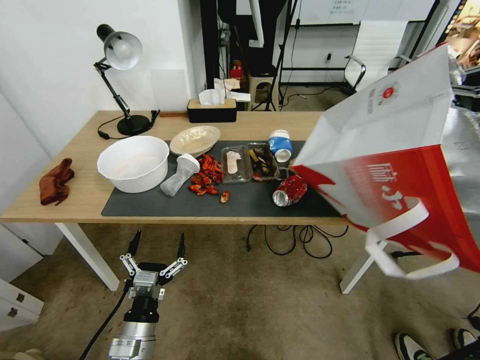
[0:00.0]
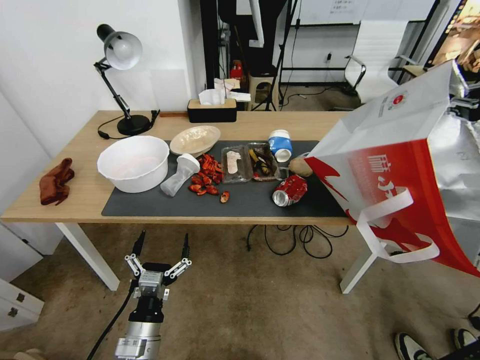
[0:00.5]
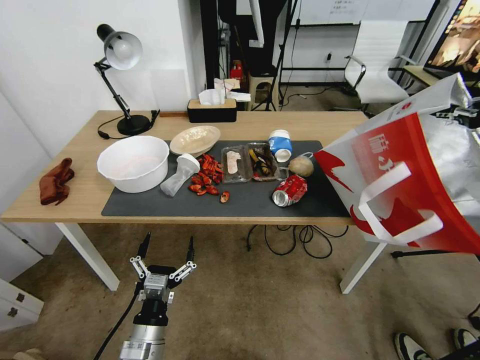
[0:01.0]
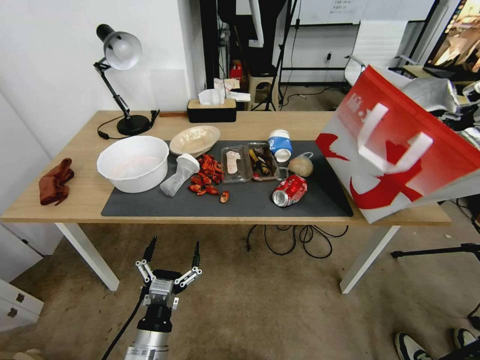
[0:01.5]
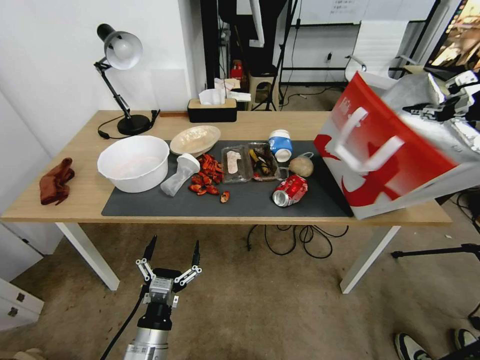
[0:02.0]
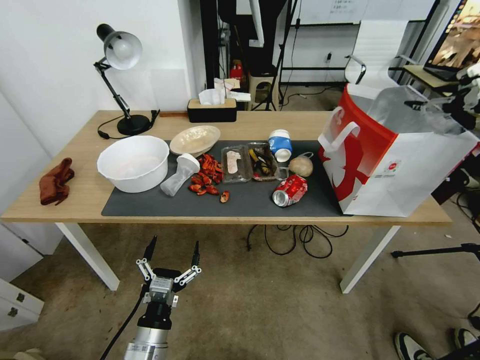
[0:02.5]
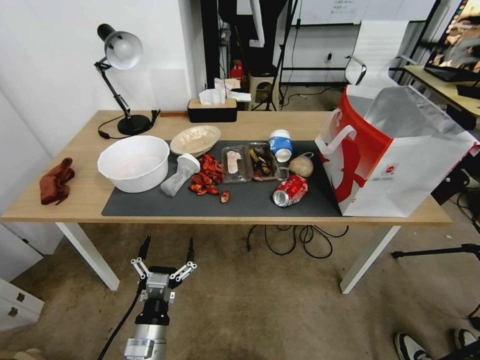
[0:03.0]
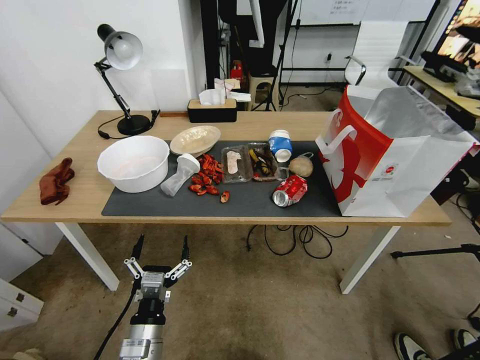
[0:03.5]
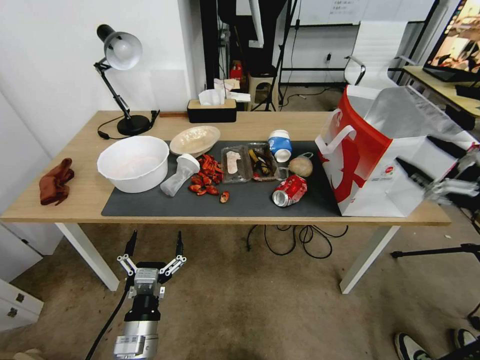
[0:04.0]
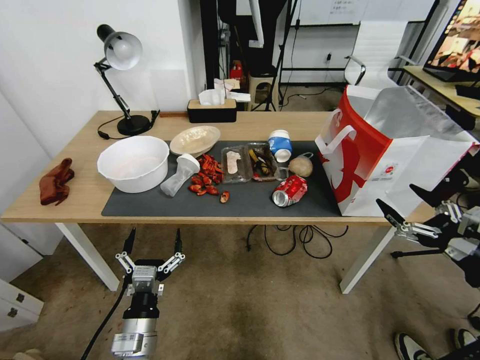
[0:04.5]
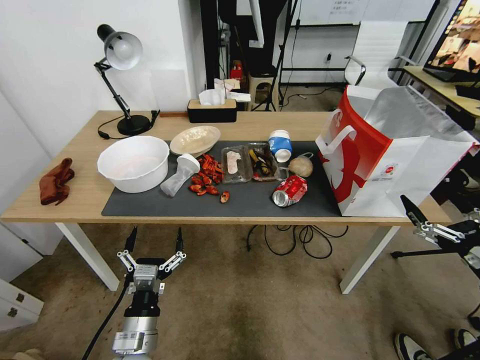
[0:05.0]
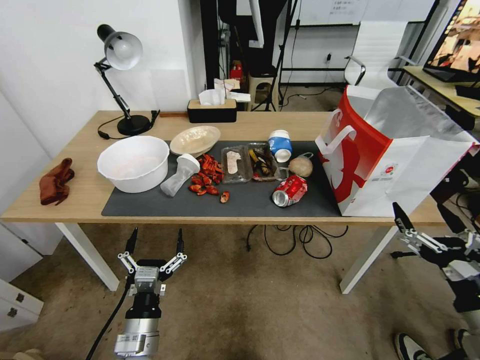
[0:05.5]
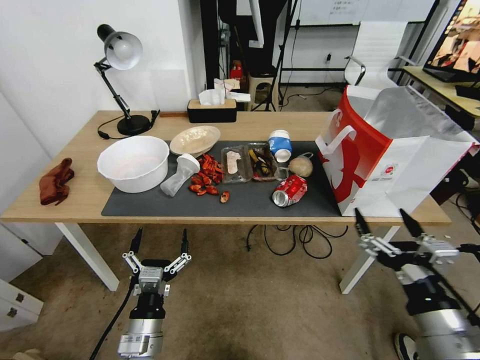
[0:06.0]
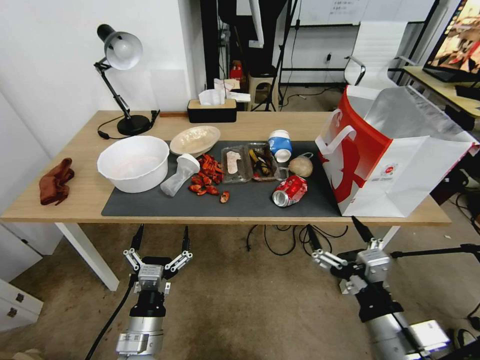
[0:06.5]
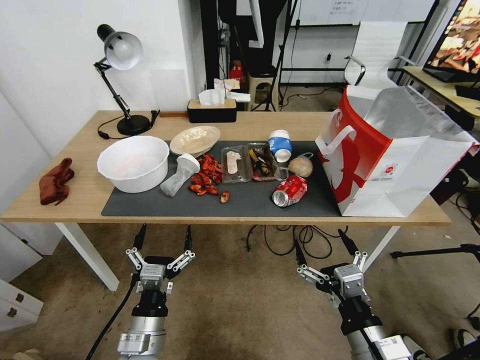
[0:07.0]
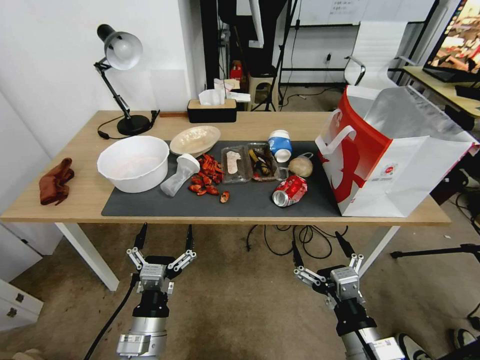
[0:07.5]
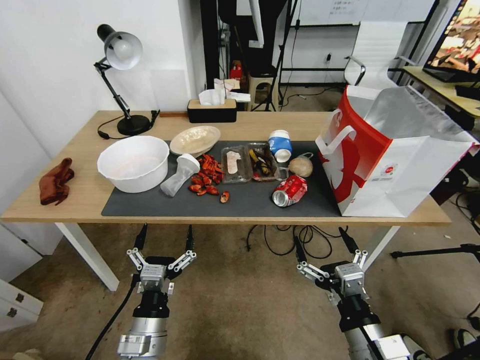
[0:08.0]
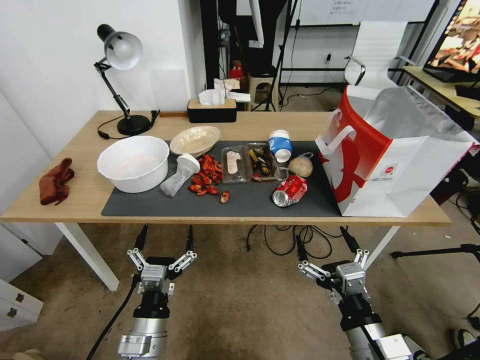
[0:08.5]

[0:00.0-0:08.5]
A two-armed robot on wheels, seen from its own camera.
Task of the whole recording: Pick up the food delivery bag from the floor and place it on the table.
0:00.0 to 0:02.0: The right gripper shifts approximately 15 cm downward and forward.
0:02.0 to 0:04.0: The right gripper goes approximately 25 cm backward and downward, and opens.
0:04.0 to 0:06.5: The right gripper shifts roughly 25 cm to the left and downward.
0:06.5 to 0:08.5: The grippers stay close to where they were, moving slightly.
